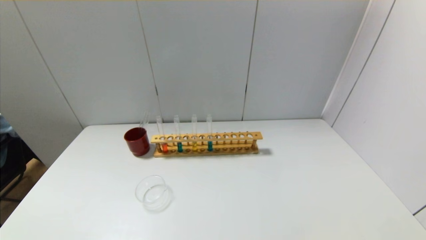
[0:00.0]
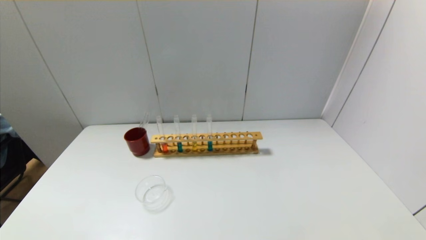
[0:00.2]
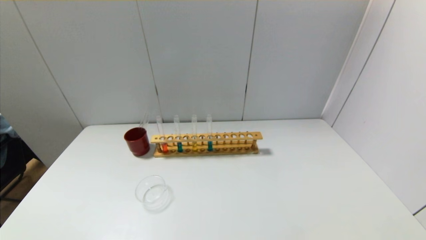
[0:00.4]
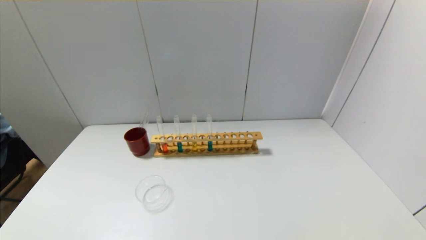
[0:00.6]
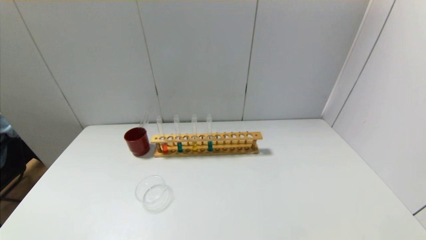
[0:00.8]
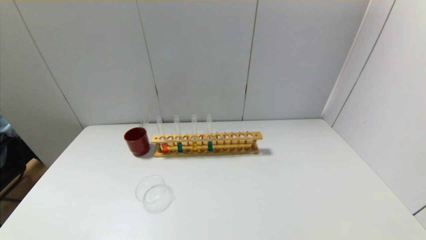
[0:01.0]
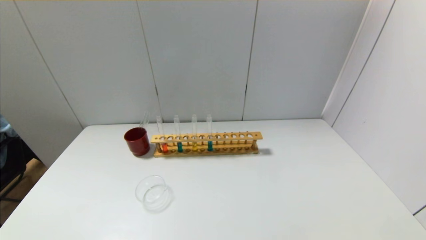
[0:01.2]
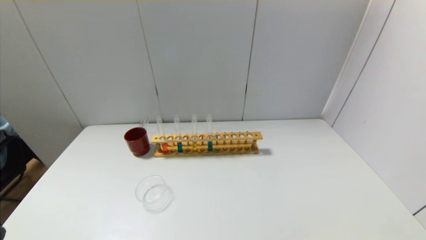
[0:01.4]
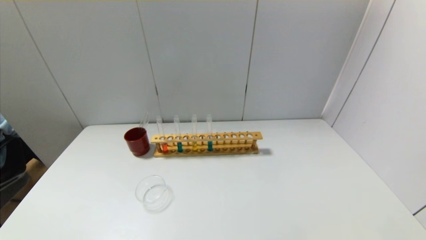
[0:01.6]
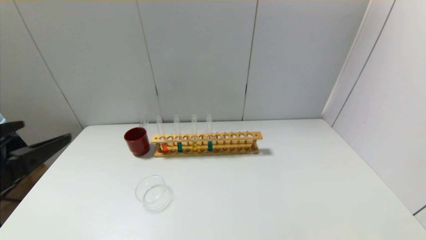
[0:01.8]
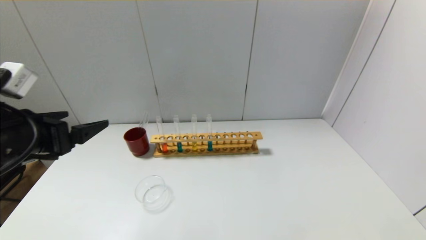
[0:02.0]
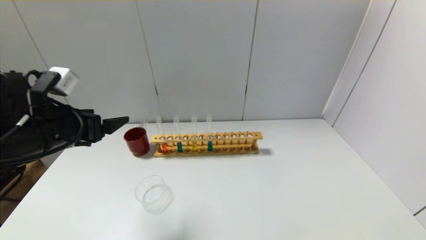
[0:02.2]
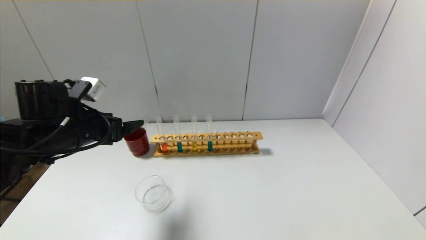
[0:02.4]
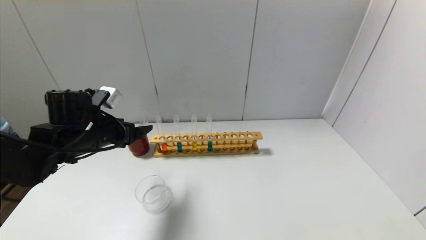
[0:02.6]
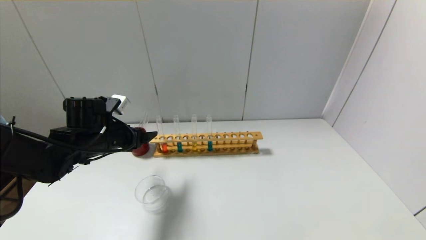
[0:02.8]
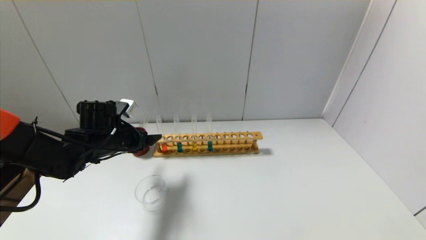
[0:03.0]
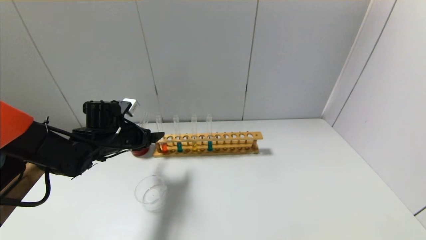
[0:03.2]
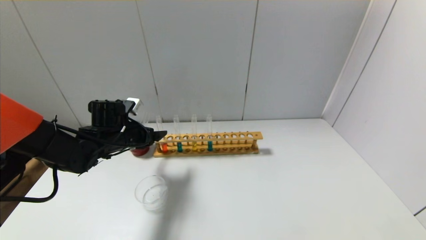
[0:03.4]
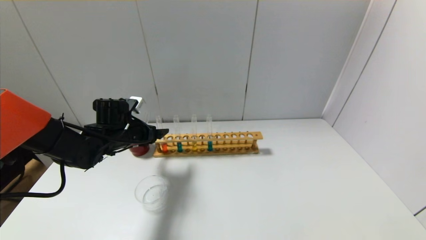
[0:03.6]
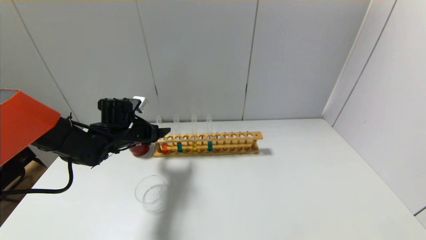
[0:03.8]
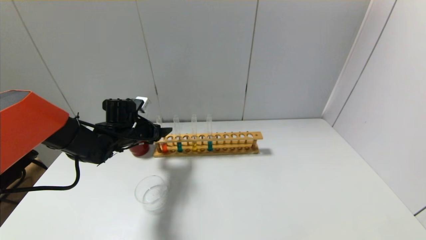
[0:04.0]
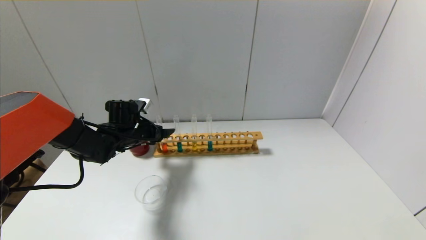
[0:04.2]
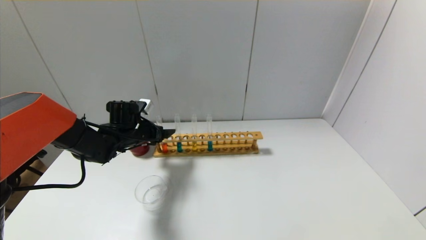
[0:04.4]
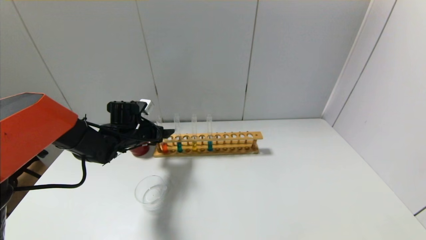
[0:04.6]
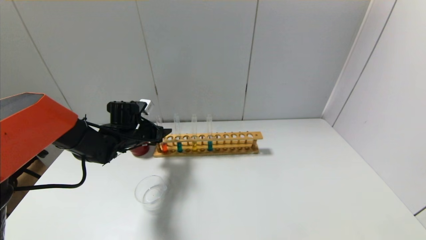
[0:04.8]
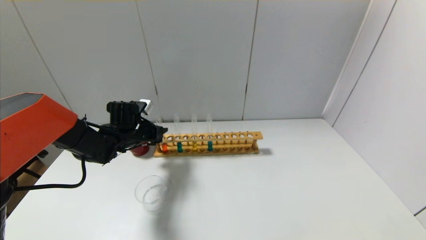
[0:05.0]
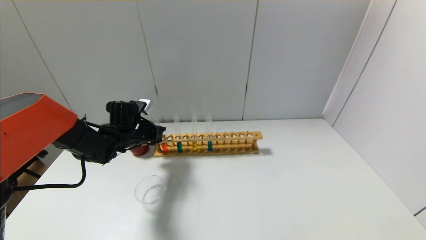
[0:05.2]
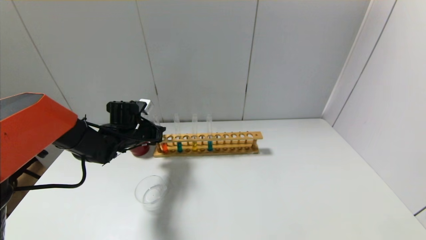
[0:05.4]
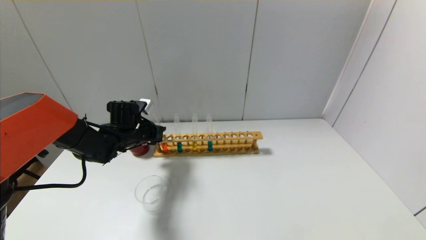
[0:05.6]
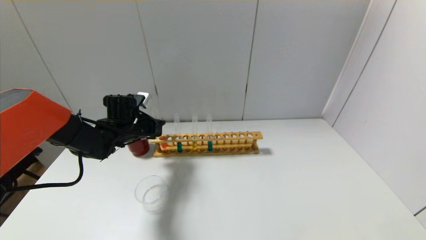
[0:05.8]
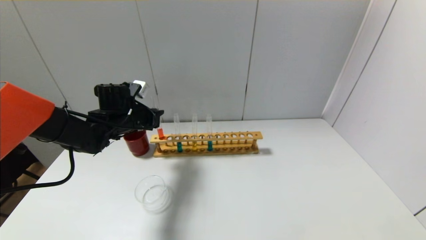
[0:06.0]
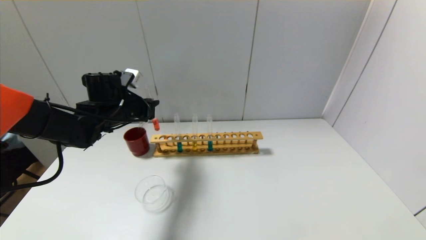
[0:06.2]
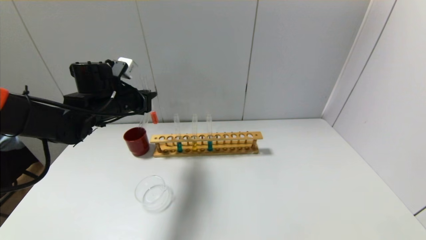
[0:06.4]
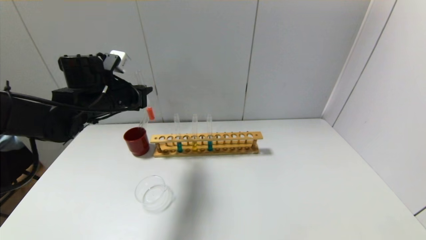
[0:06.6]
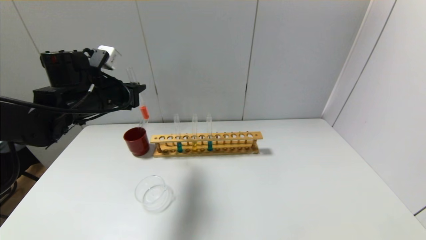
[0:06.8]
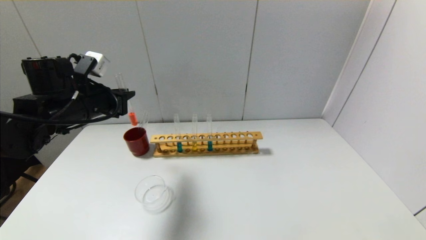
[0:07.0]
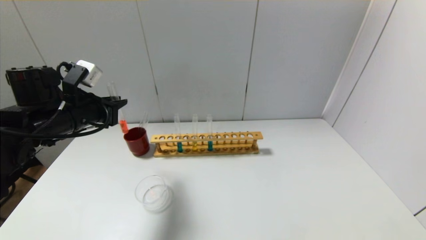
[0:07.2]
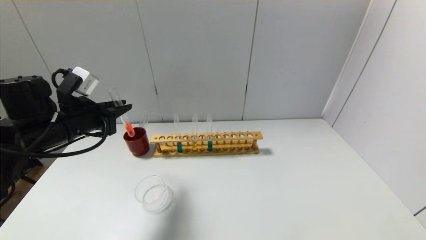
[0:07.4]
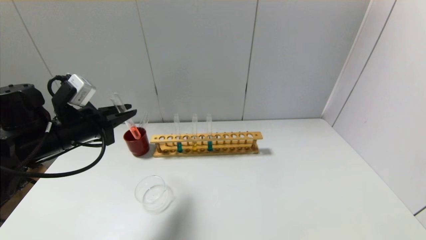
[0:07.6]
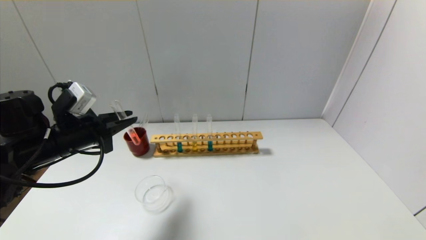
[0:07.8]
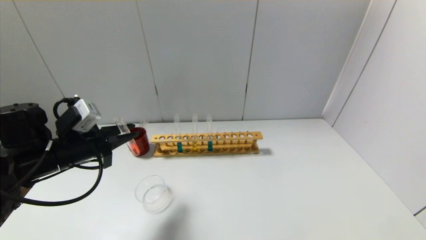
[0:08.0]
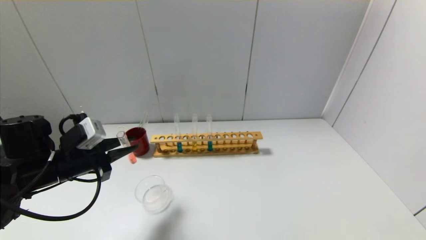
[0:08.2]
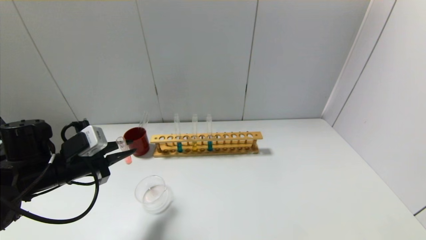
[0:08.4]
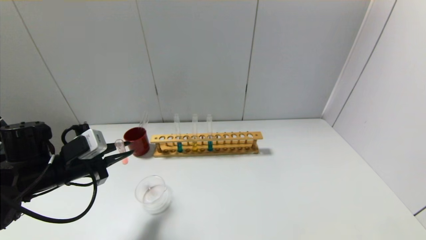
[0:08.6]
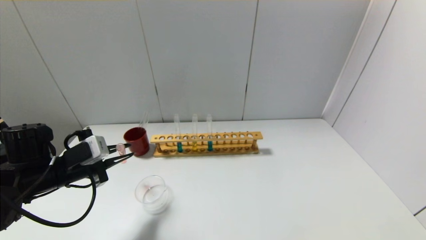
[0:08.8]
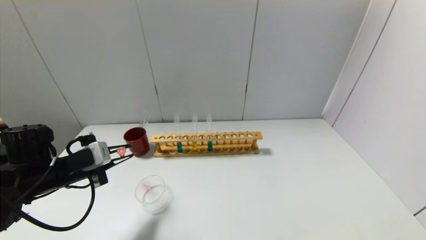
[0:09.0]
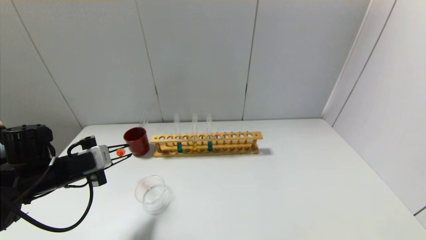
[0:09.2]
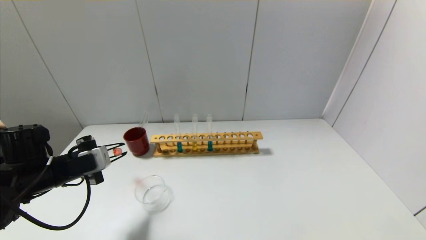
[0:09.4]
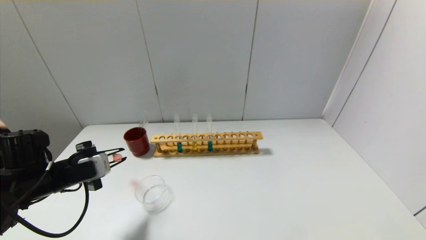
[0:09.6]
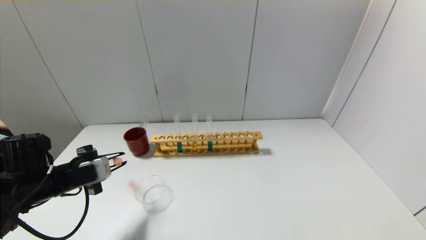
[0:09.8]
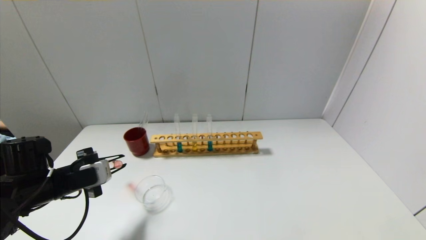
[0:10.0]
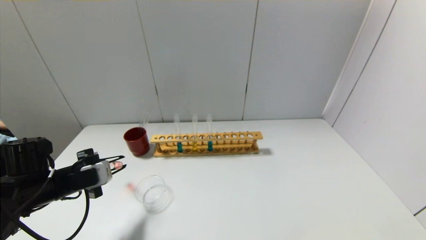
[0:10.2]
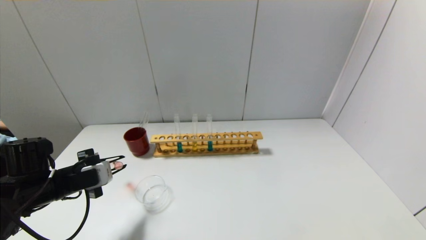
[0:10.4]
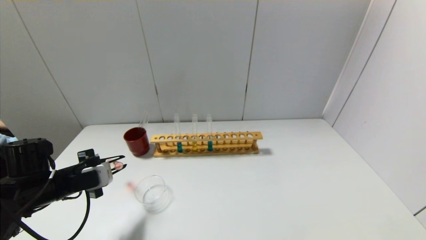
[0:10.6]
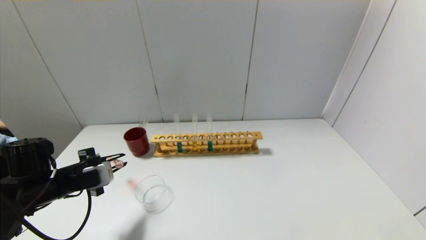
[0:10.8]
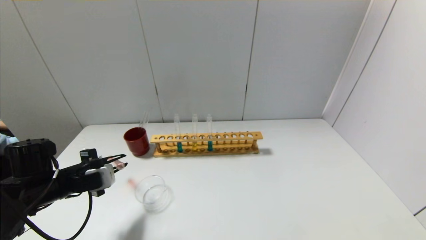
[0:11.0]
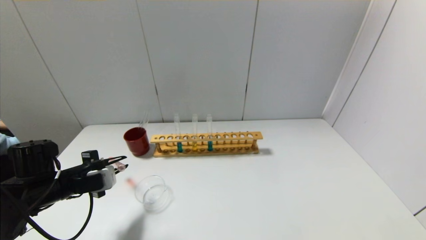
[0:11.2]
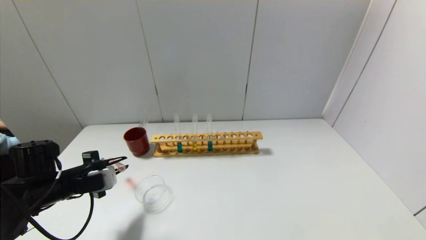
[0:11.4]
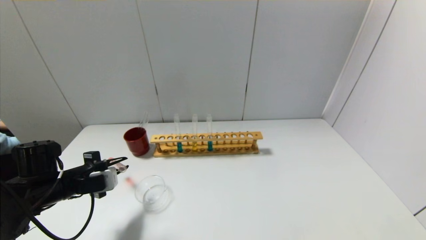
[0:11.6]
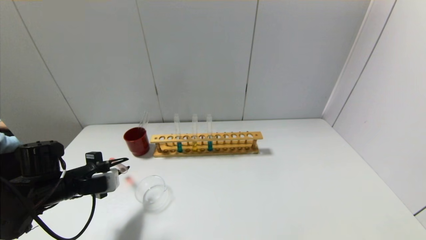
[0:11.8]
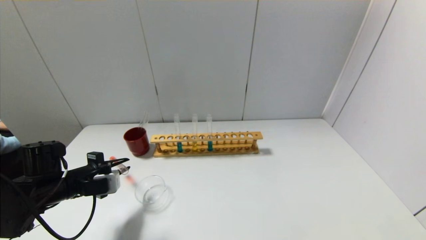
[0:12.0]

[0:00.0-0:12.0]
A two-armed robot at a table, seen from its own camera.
Step, 0:00.0 to 0:05.2: Grasp the red reagent with the left gripper.
0:01.6 to 0:03.0: The left gripper goes about 30 cm forward.
0:03.0 to 0:04.4: The left gripper goes some 5 cm forward.
0:04.4 to 0:06.0: The left gripper closes up.
0:06.0 to 0:07.6: The left gripper travels backward and to the left by some 15 cm.
0:07.6 to 0:09.0: The left gripper heads downward, covering roughly 5 cm.
0:09.0 to 0:10.4: There are only small adjustments of the grippers.
0:10.4 to 0:12.0: There are only small adjustments of the grippers.

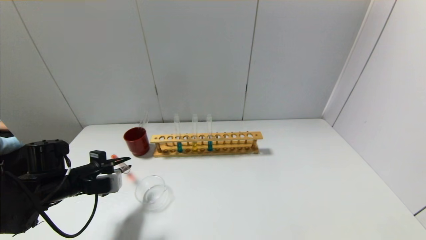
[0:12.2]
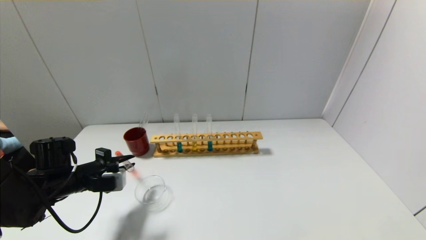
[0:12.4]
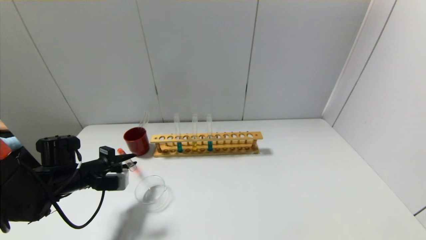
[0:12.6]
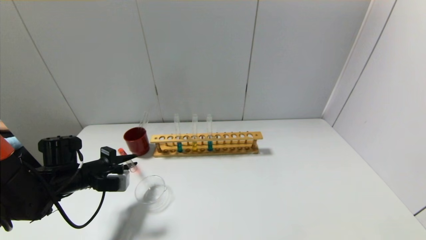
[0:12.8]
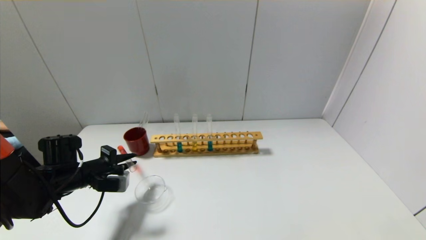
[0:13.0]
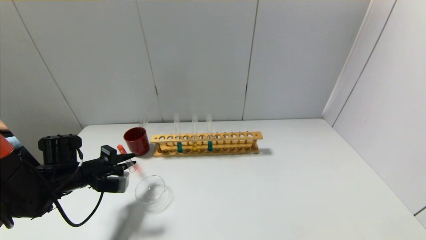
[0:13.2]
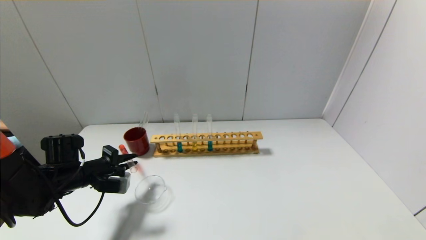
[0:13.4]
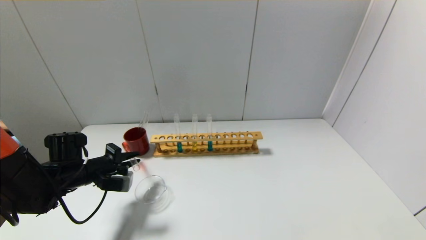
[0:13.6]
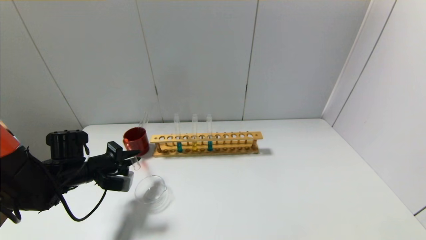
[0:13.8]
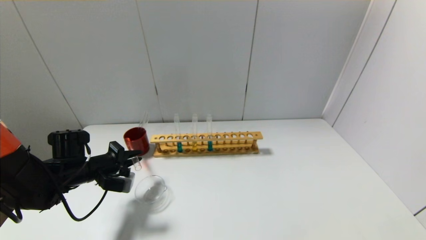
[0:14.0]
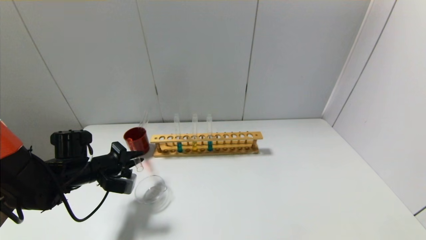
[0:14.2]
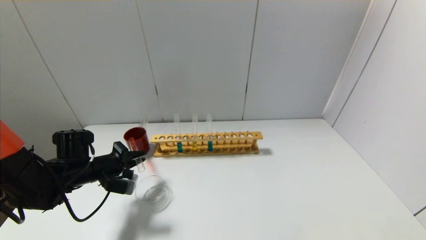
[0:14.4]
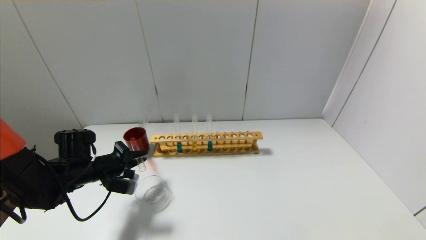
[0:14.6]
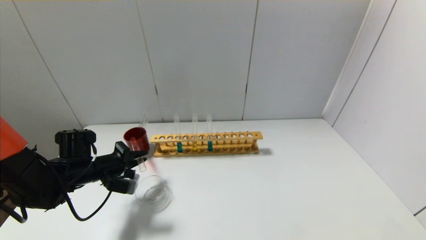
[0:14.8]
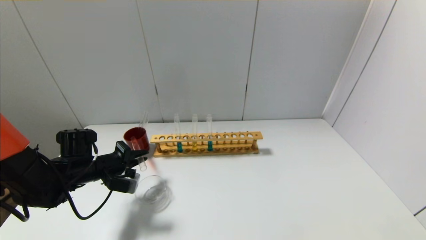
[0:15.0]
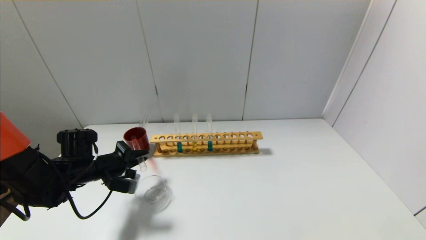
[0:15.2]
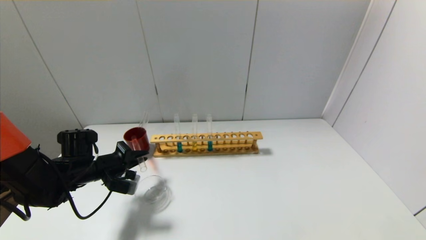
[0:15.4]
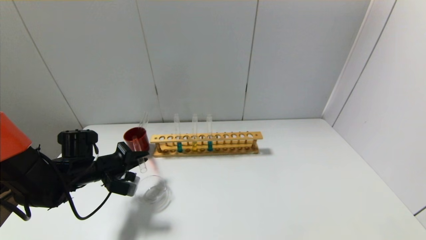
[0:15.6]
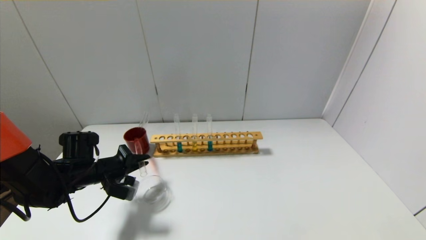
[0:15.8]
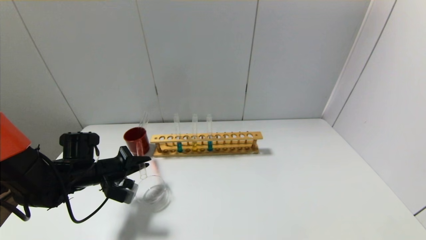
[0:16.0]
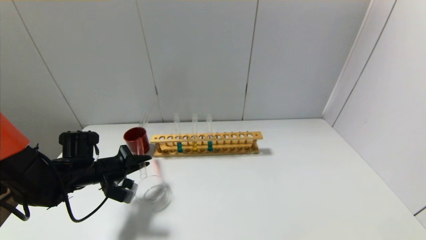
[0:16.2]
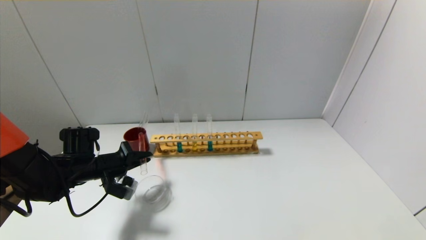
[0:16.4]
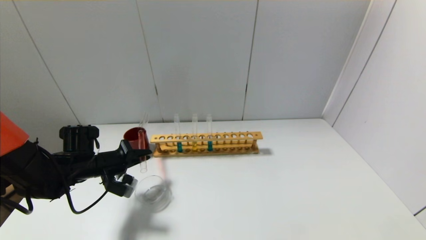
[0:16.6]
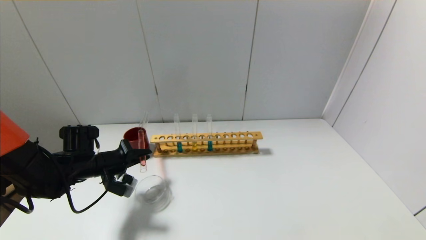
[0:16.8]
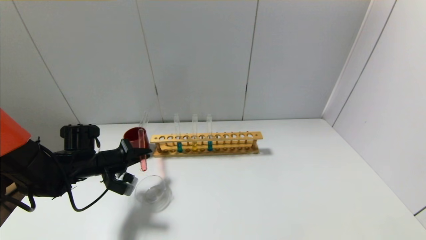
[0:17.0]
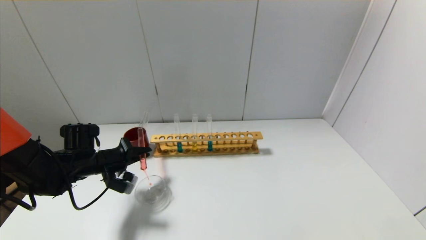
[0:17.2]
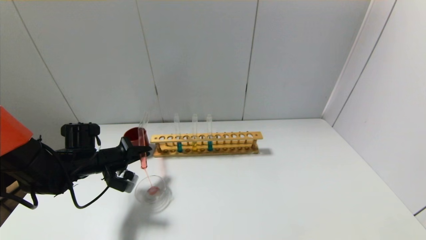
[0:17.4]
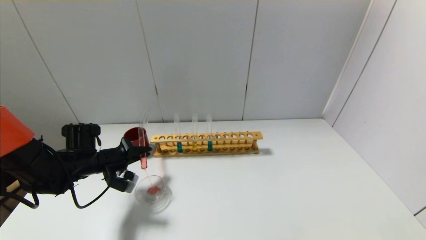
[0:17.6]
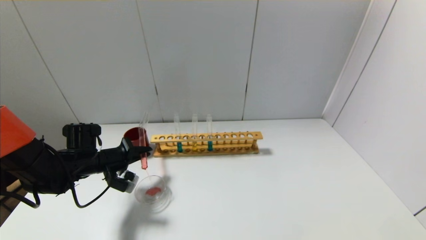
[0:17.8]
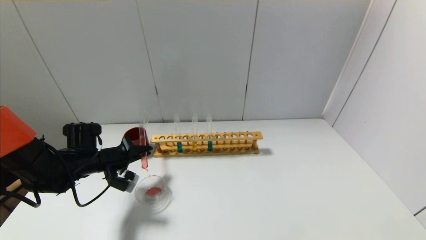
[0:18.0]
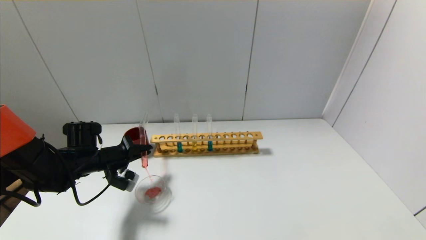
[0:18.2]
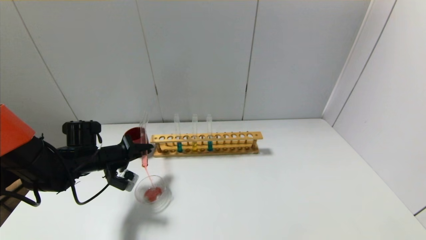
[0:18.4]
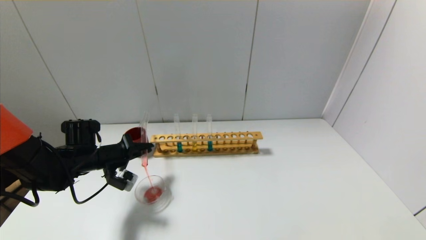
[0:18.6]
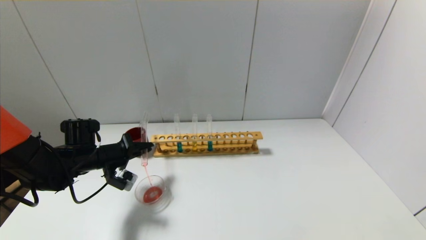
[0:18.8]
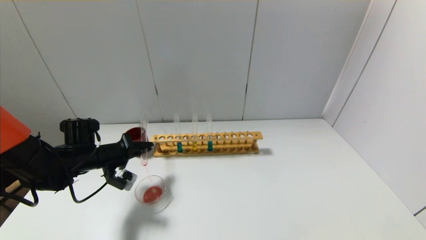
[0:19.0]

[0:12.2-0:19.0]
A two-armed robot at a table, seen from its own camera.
0:12.2 to 0:13.6: The grippers move only a little.
0:13.6 to 0:16.2: The grippers move only a little.
0:16.2 to 0:19.0: The grippers move only a little.
